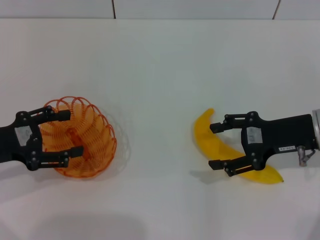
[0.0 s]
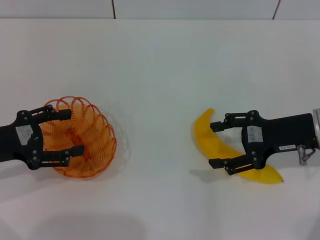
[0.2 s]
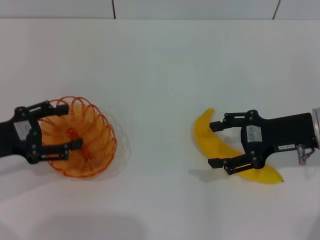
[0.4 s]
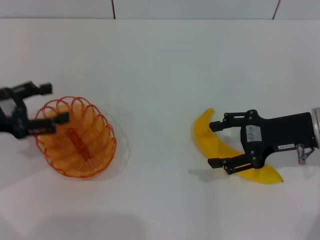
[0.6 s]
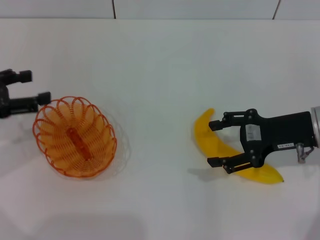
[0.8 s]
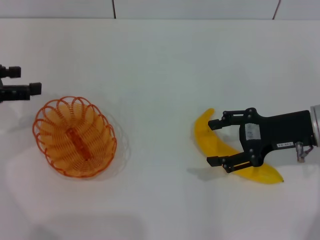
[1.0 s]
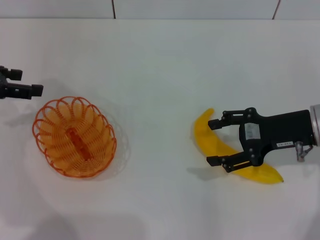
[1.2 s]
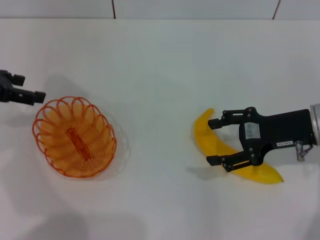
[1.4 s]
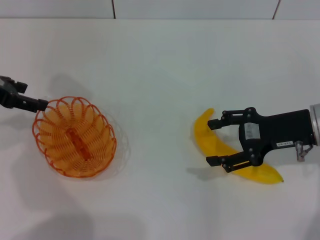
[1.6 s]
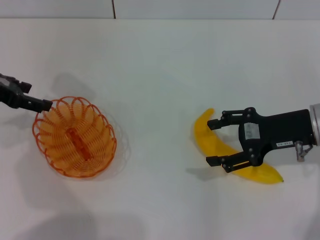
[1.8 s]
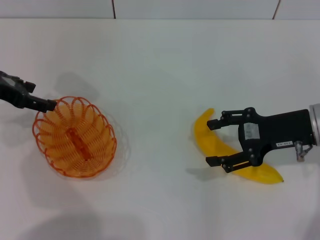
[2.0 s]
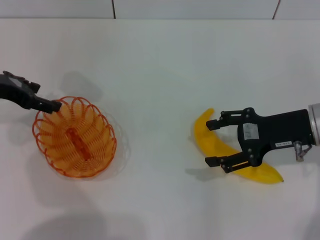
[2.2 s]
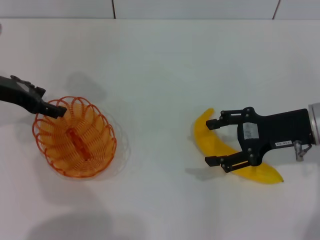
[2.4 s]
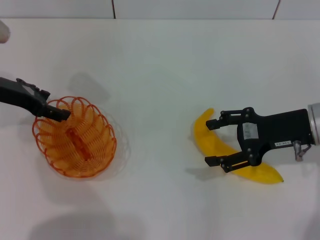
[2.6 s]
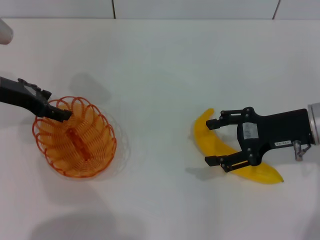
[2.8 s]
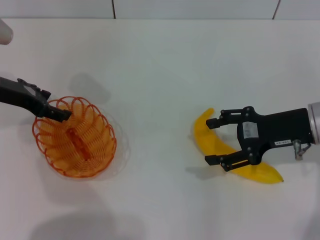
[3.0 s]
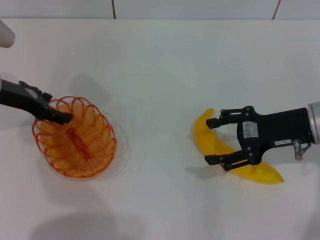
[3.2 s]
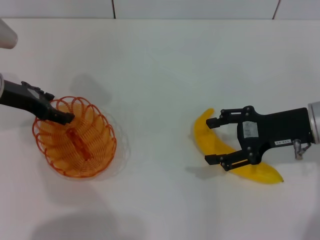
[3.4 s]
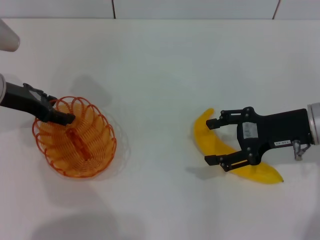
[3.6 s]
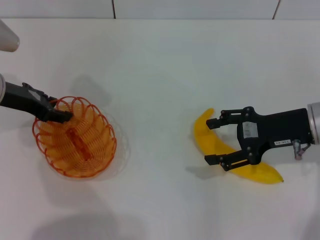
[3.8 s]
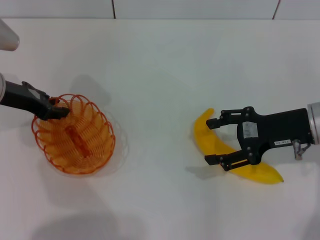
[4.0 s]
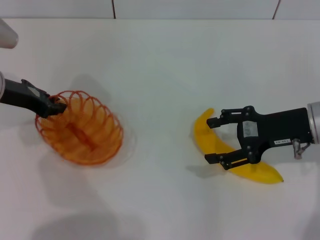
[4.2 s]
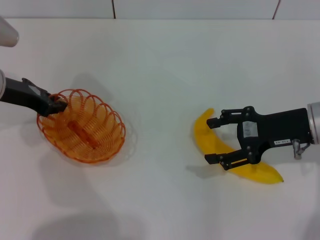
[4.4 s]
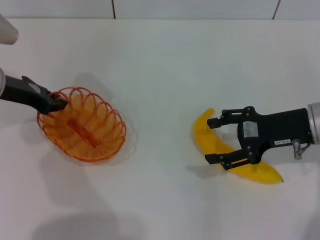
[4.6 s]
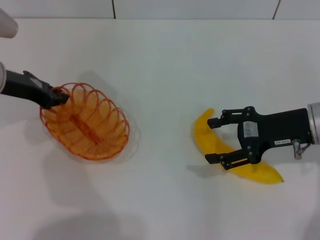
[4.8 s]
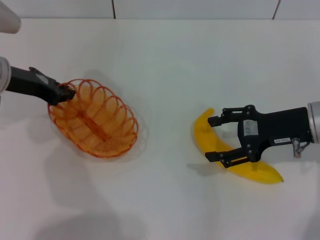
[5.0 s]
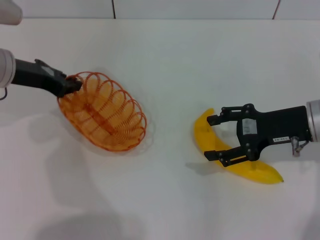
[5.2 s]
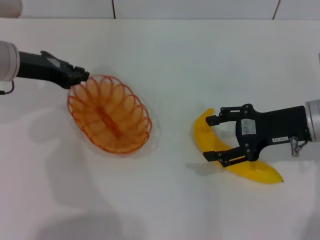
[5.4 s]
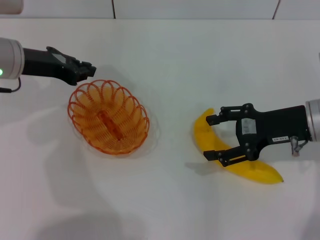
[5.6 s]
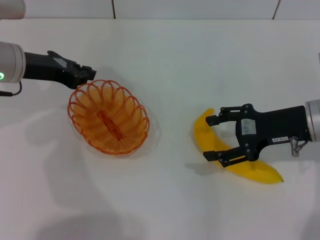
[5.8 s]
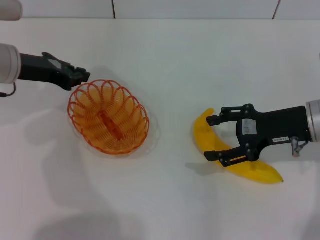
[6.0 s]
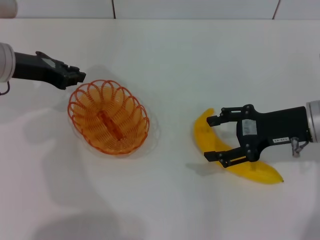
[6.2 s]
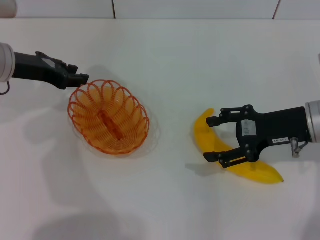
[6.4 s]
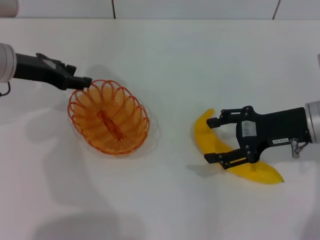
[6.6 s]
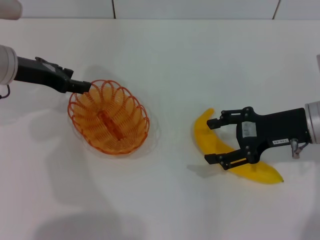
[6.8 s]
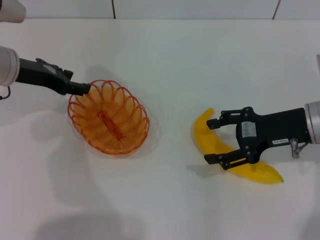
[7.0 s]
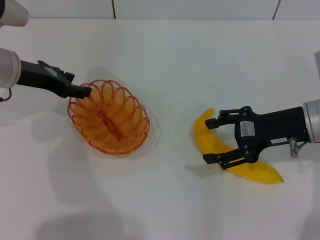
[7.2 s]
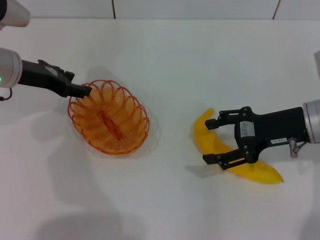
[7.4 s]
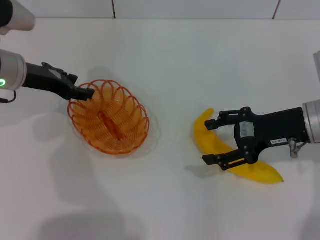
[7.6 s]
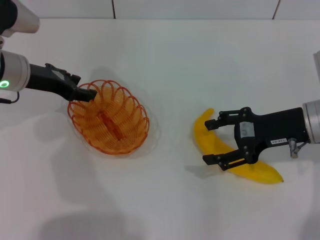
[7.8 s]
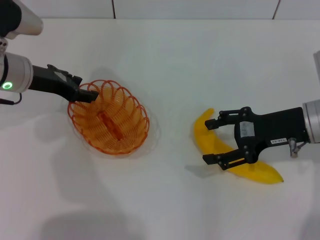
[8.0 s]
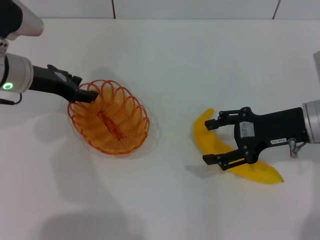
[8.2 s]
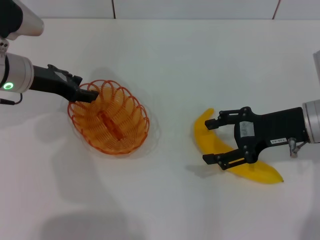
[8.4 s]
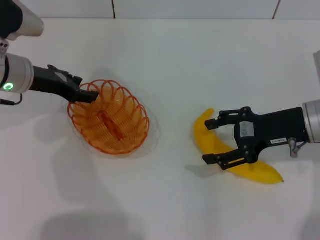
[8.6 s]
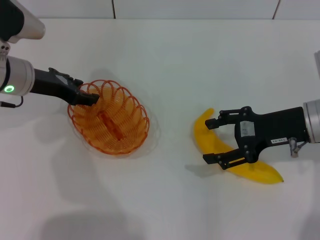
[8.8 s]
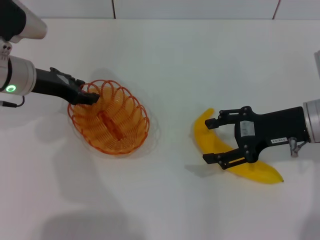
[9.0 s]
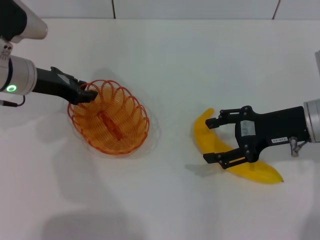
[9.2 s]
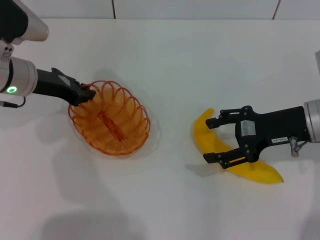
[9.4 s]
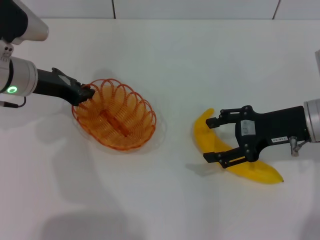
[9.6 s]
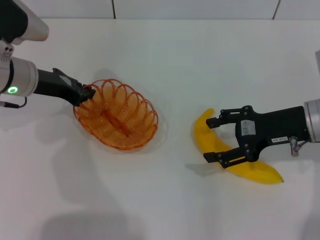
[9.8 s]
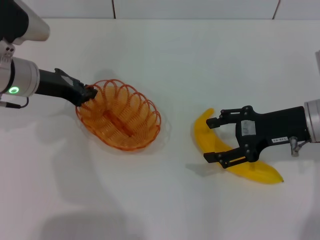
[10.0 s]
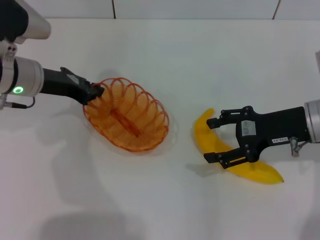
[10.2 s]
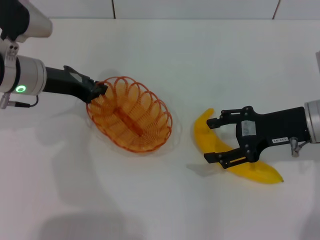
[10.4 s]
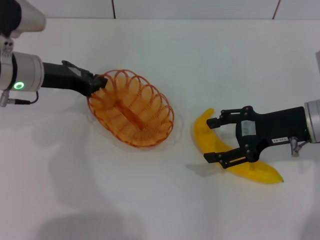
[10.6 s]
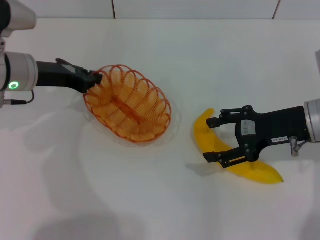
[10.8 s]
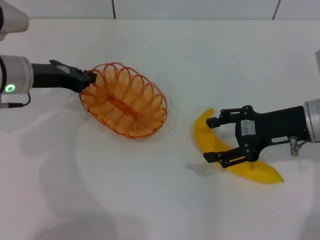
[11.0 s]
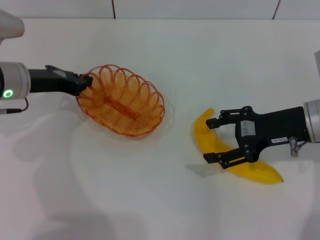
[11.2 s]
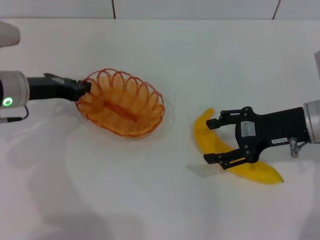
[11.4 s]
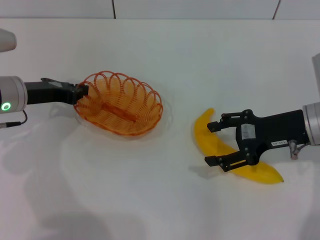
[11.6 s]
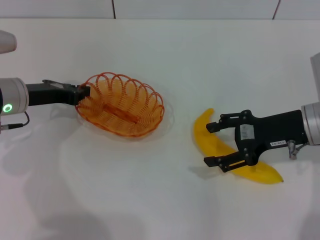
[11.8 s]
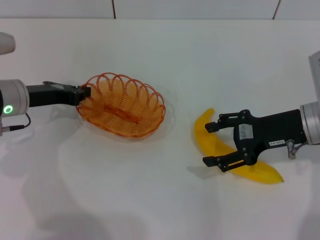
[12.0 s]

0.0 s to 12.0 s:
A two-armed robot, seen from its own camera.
Step, 0.0 to 10.6 s: Pick up the basket with the left gripper.
0.0 to 1.6 s: The left gripper travels forward and upward by some 10 cm.
1.6 to 3.0 s: The left gripper shifts by some 5 cm.
3.0 to 4.4 s: The left gripper closes up.
4.4 to 6.0 s: The grippers move only a little.
6.0 to 7.6 s: The left gripper opens.
7.6 to 9.0 s: The grippers make only small movements.
9.0 to 10.4 s: The left gripper closes.
10.4 to 12.0 s: The left gripper changes place by approximately 5 cm.

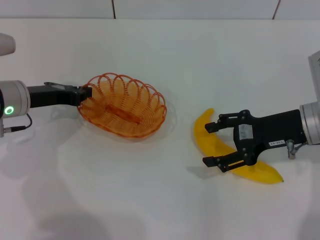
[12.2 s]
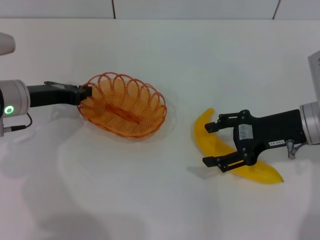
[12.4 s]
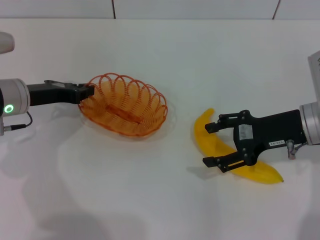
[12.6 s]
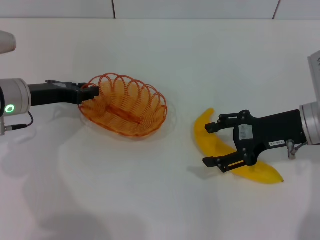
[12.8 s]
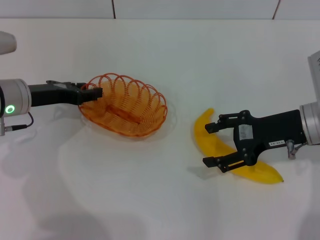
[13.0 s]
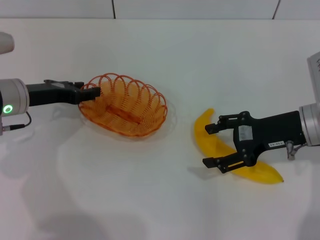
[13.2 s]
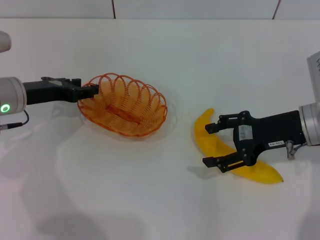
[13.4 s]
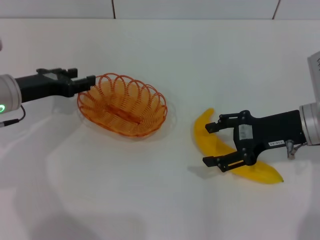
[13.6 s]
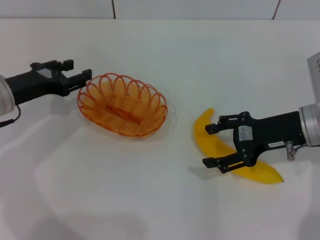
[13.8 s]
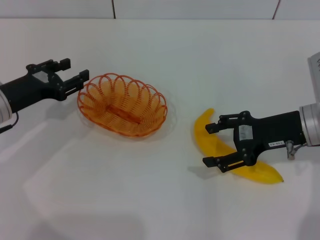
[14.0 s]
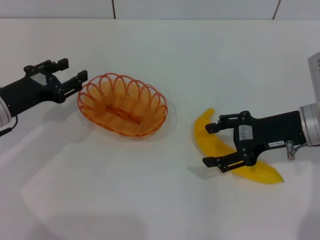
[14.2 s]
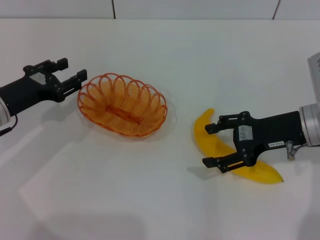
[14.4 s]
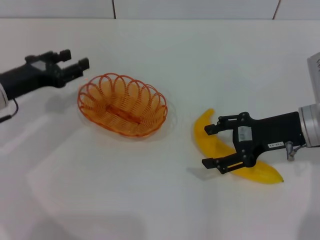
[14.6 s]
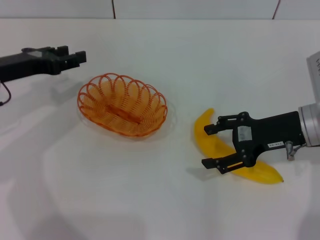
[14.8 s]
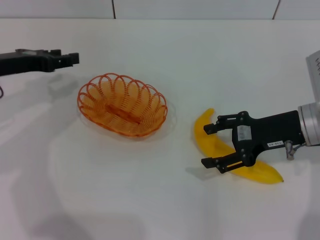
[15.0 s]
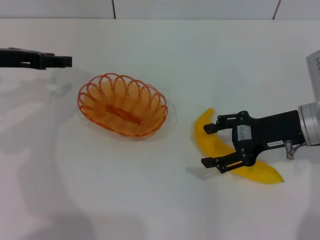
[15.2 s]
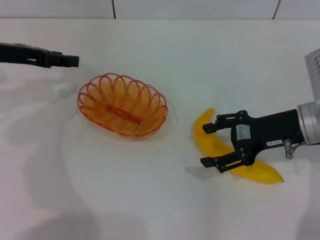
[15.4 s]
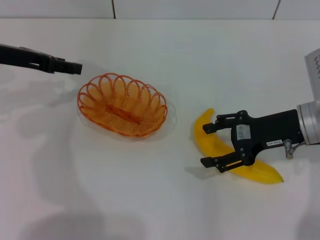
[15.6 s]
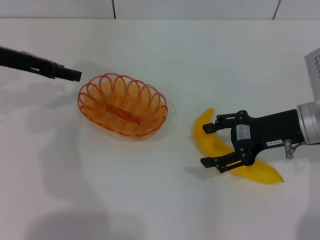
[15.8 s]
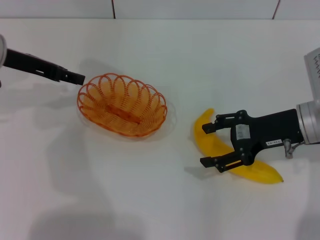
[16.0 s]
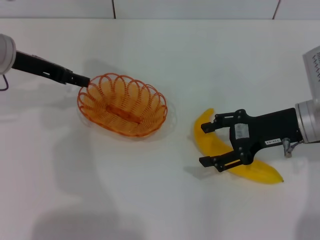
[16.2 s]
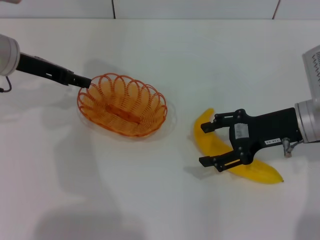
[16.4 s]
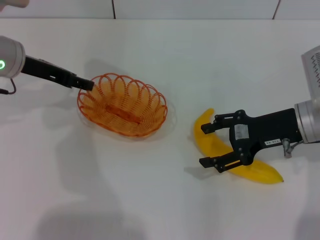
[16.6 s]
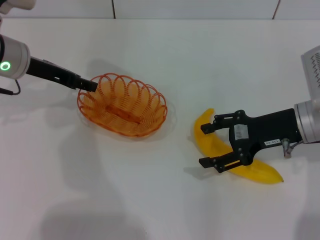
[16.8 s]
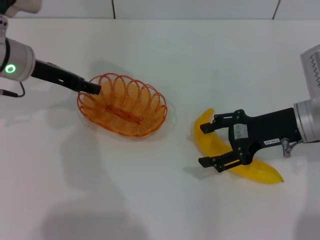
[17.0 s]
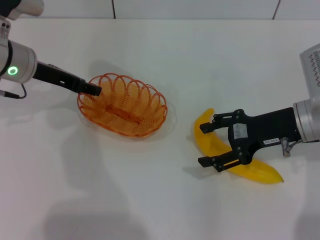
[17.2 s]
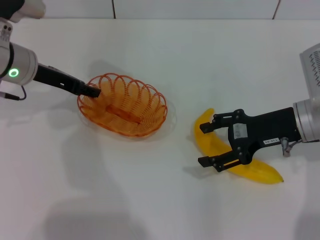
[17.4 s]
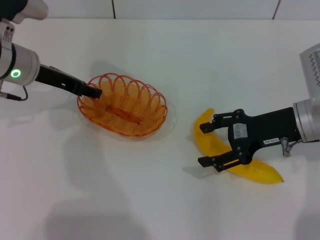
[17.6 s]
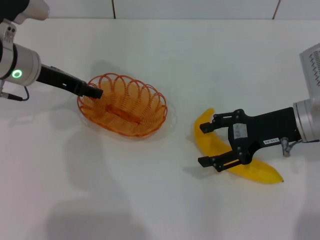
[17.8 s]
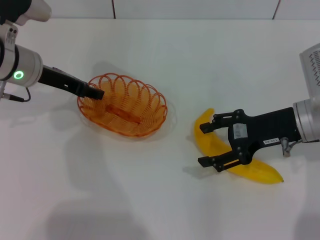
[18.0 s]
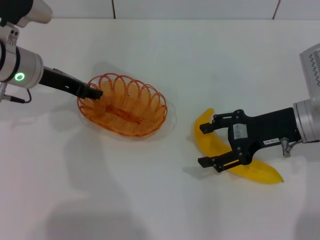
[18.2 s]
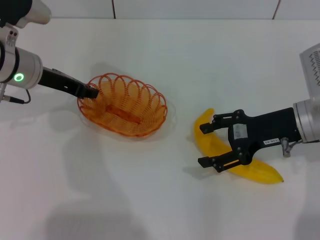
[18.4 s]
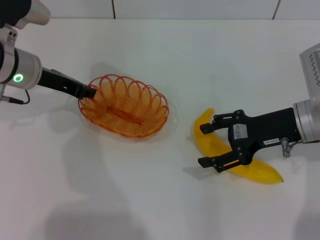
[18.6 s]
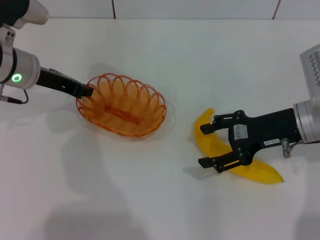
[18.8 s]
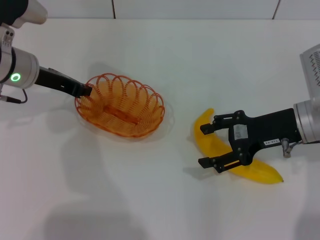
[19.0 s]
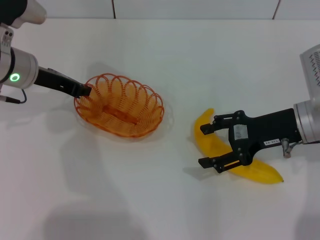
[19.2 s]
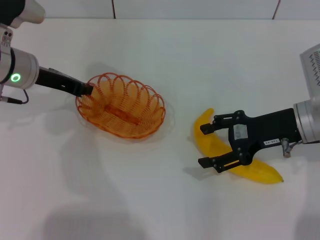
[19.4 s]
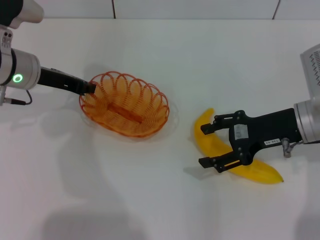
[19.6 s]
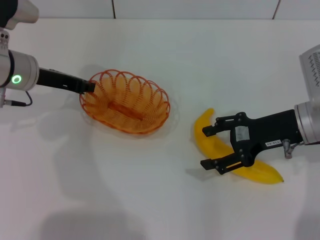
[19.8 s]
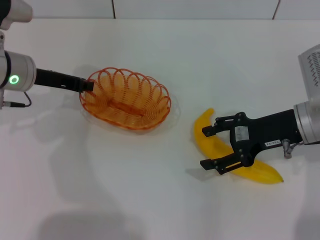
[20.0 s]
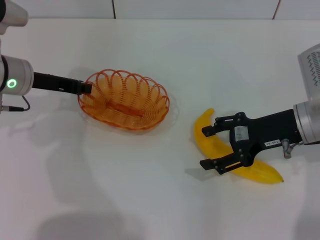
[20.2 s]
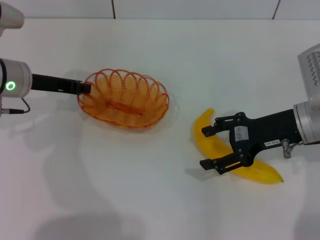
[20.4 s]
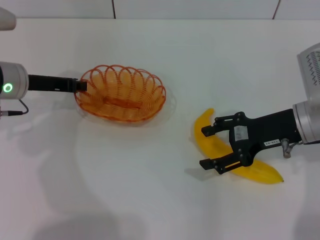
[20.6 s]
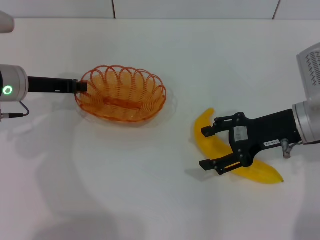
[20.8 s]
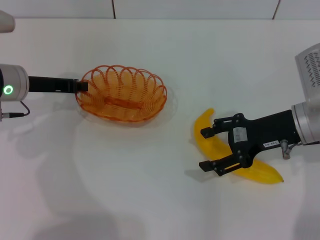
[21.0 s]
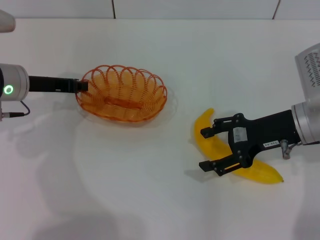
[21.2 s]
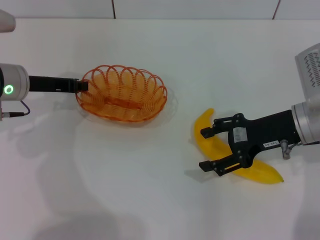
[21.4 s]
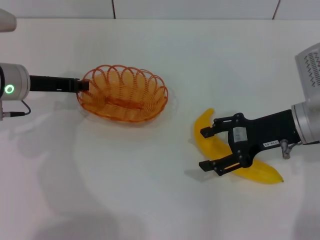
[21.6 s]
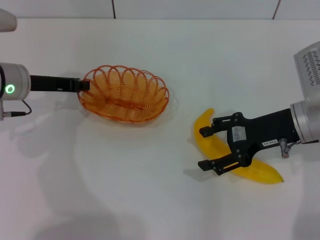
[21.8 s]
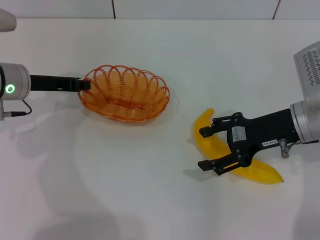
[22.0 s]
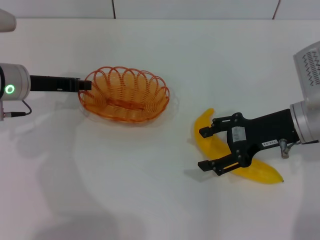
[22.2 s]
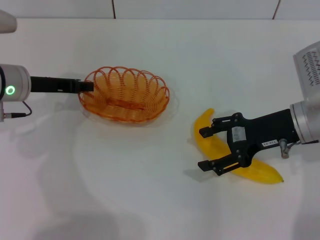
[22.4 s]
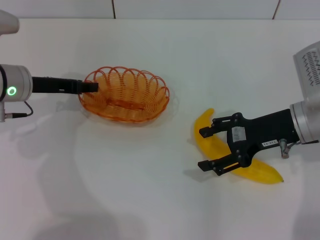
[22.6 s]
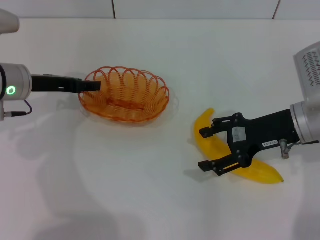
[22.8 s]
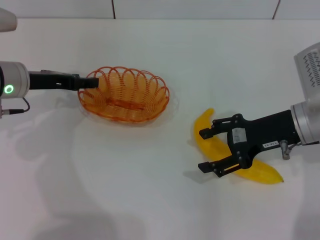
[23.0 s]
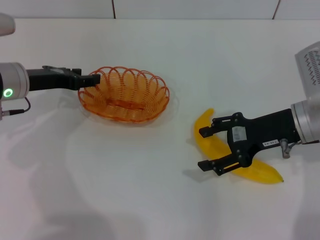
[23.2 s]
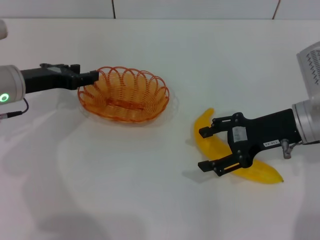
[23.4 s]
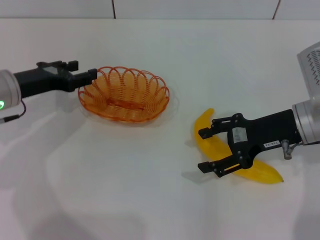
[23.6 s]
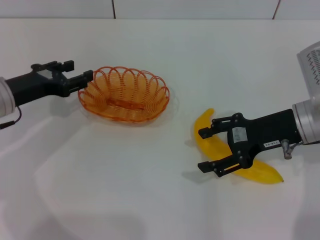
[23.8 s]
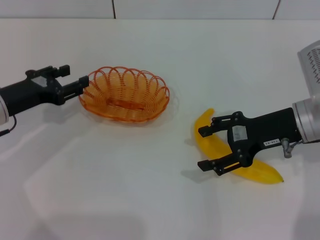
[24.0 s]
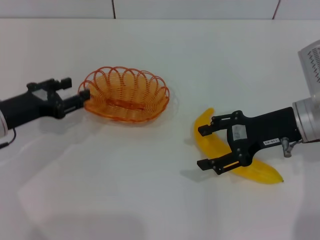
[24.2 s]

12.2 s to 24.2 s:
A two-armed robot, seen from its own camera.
Step, 12.2 to 23.0 s: Place the basket in the center of view with the left gripper.
12.2 to 13.8 s: The left gripper opens its fingers.
13.8 to 15.2 s: The left gripper shifts approximately 5 cm upward.
15.2 to 16.6 s: The left gripper goes some 5 cm to the right.
16.6 to 18.2 s: The grippers move only a little.
18.2 to 19.8 s: The left gripper closes.
19.8 to 21.2 s: The grippers make only small movements.
21.2 to 22.6 s: Both grippers stay about where they are.
22.6 to 24.2 s: The left gripper shifts approximately 5 cm backward, and opens up.
